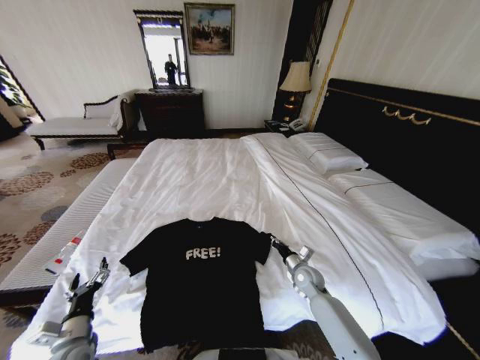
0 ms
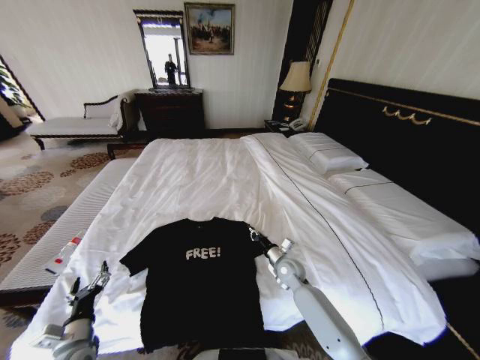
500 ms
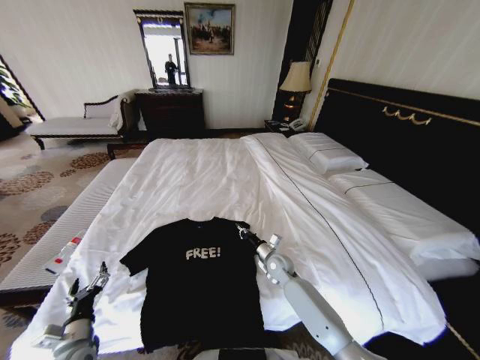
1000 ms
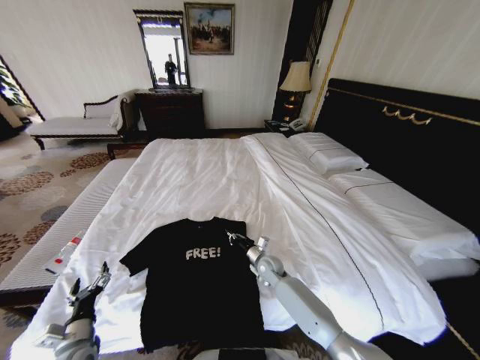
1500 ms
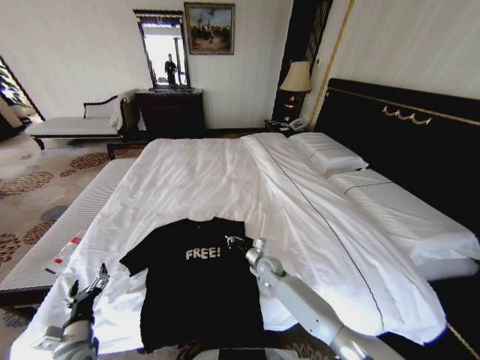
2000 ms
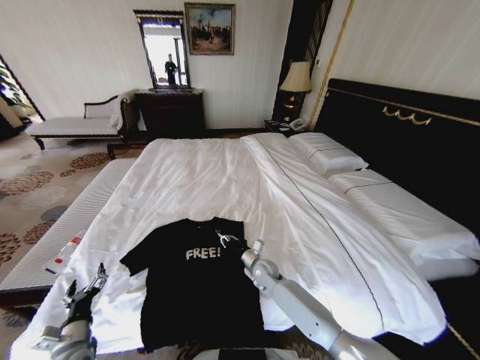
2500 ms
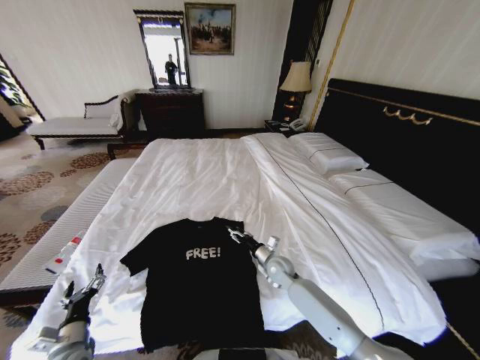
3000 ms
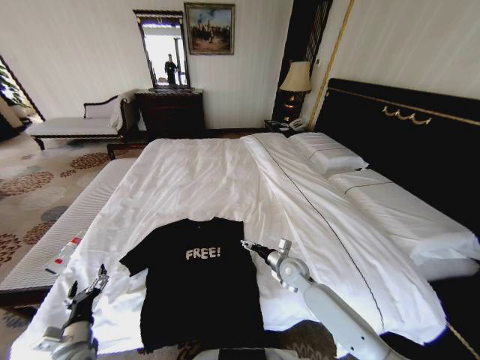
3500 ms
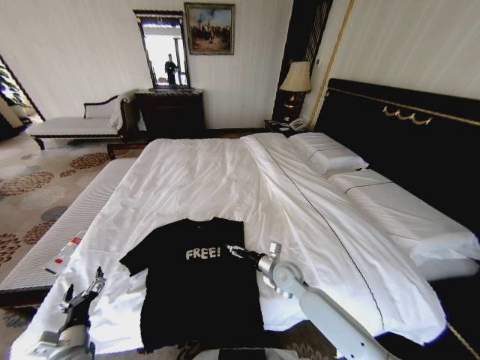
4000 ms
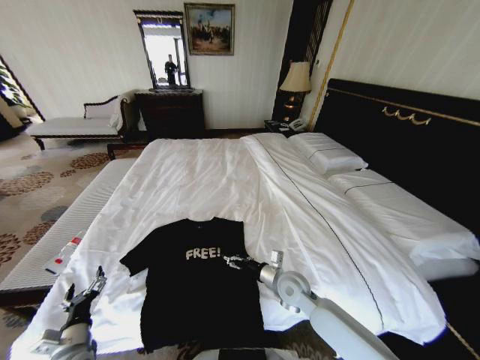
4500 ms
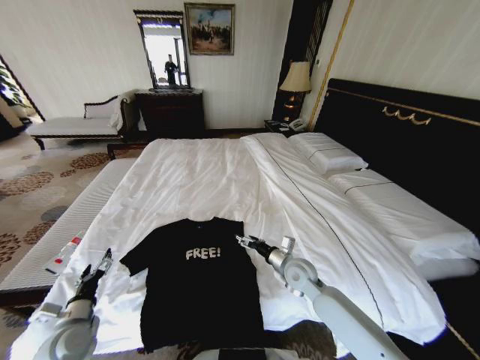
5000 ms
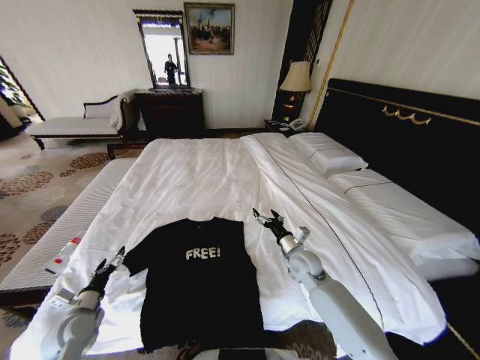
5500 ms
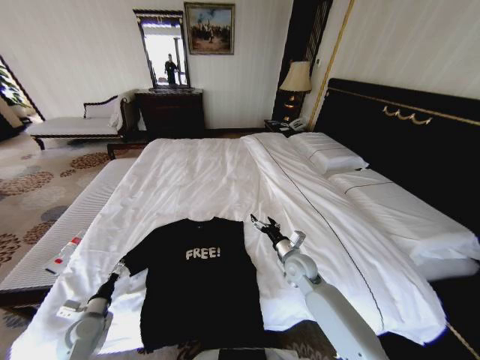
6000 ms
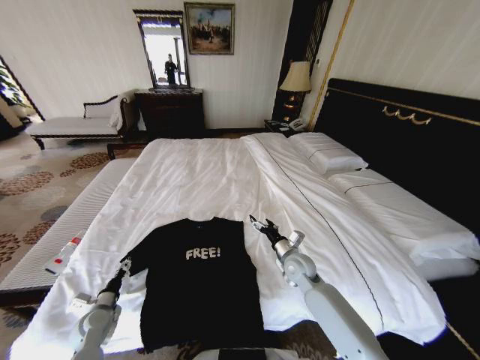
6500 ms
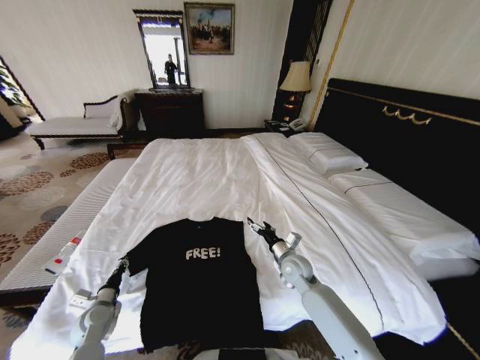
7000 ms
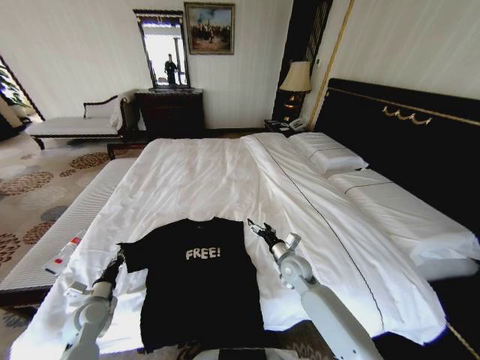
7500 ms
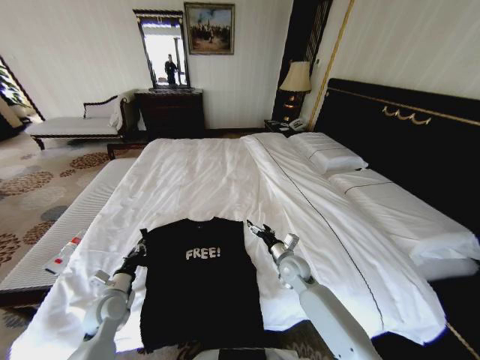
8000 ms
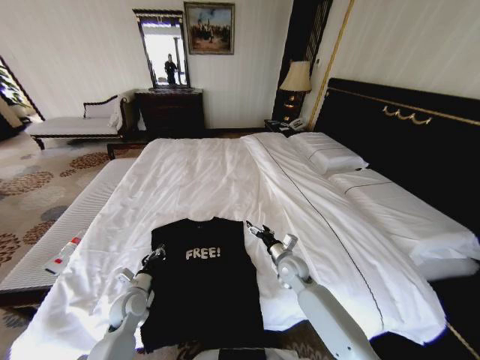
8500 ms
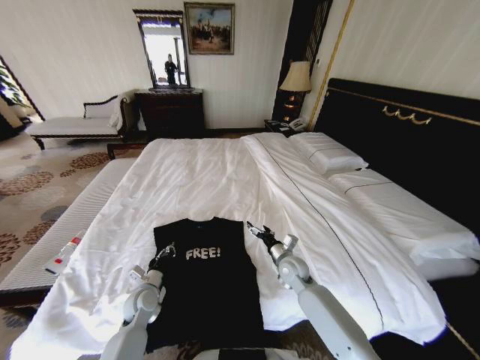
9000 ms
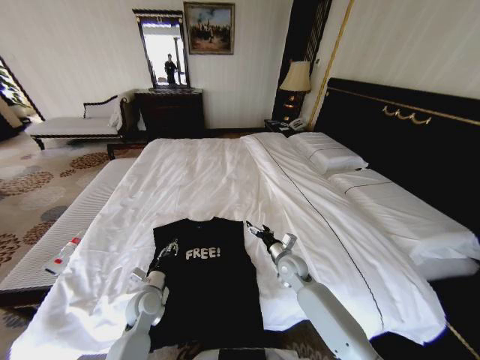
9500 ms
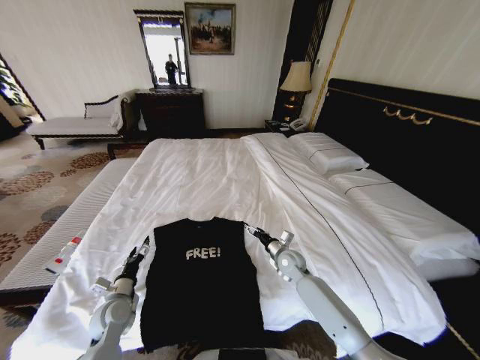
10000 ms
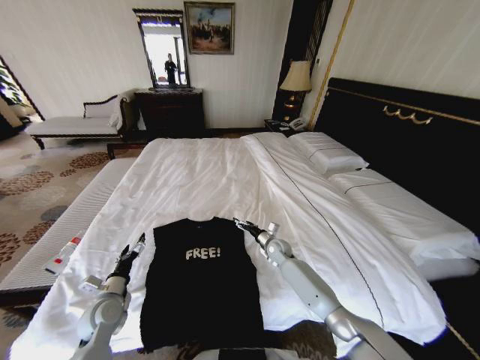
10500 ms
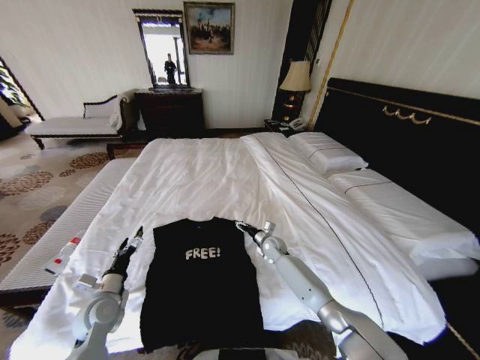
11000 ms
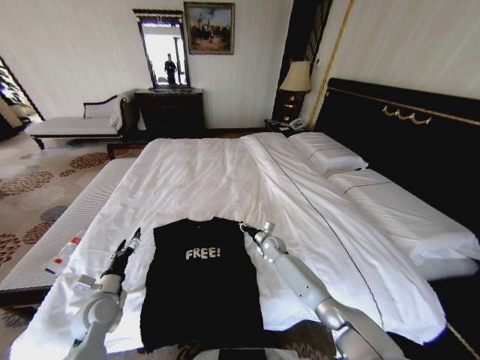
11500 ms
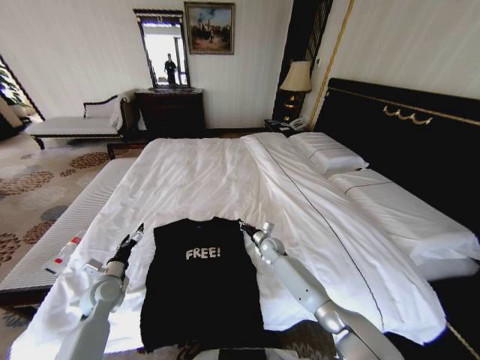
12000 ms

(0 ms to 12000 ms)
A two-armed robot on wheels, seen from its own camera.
Task of the whole recording: Fold the clothes on the bed.
0 ms - 2000 ms: The right gripper goes roughly 15 cm to the left.
2000 ms - 4000 ms: The right gripper travels upward and backward by roughly 10 cm, and opens up.
4000 ms - 6000 ms: The right gripper ends up approximately 5 cm from where it was. Meanwhile the left gripper heads forward, covering approximately 10 cm.
6000 ms - 8000 ms: The left gripper travels to the right by about 5 cm, and closes up.
8000 ms - 10000 ms: The left gripper travels to the right and back again, about 10 cm each way, and opens up.
10000 ms - 12000 ms: The left gripper shifts by about 5 cm. The right gripper heads forward, covering approximately 10 cm, and closes up.

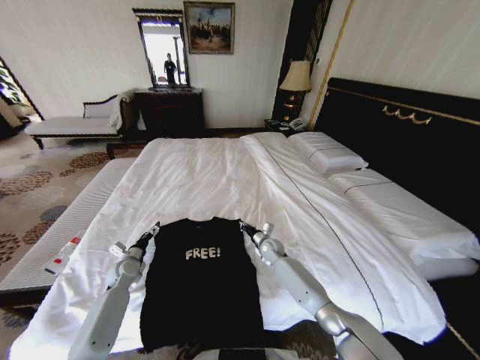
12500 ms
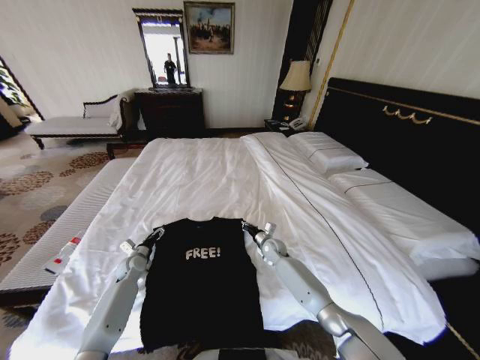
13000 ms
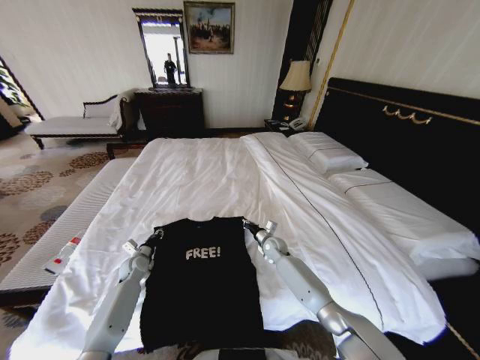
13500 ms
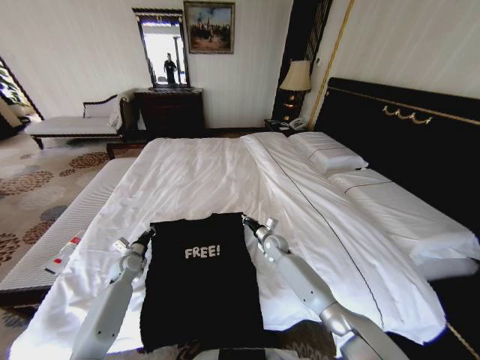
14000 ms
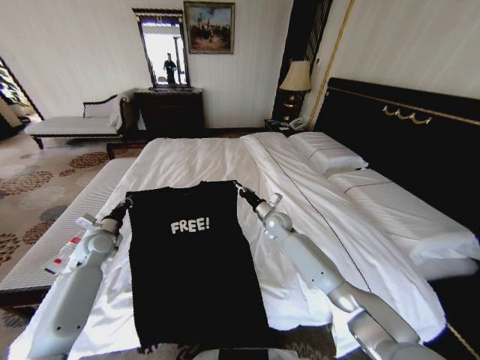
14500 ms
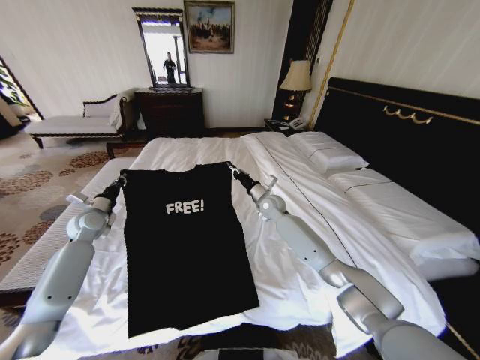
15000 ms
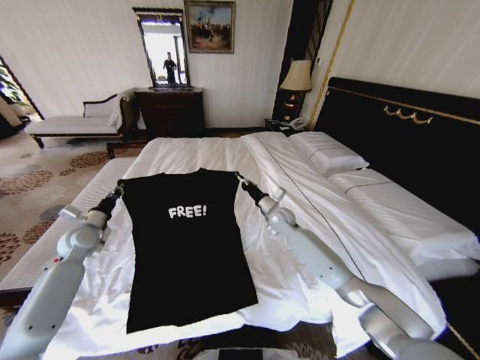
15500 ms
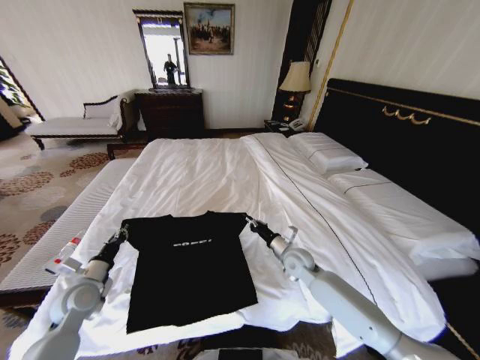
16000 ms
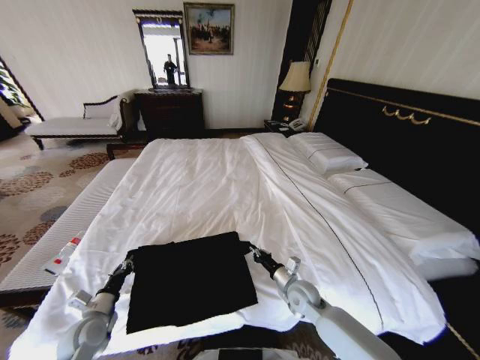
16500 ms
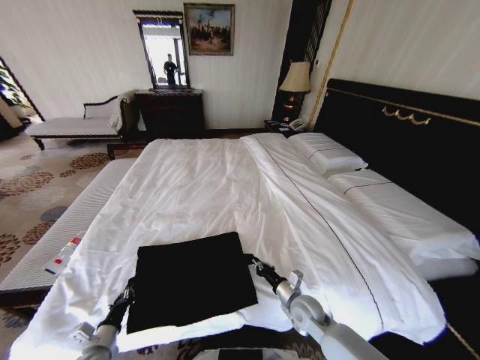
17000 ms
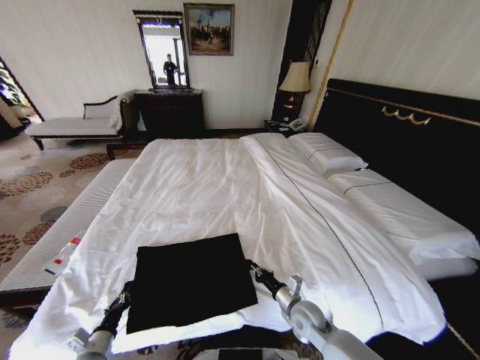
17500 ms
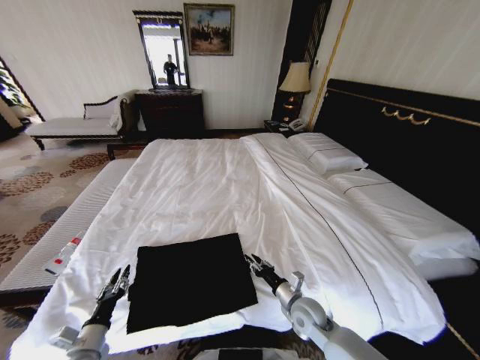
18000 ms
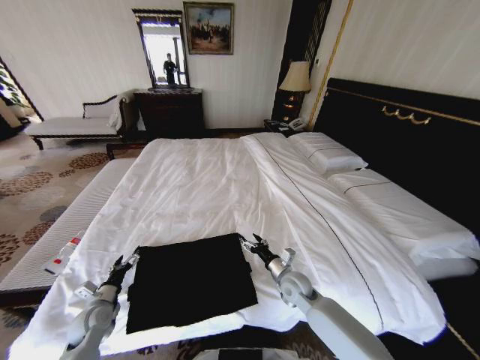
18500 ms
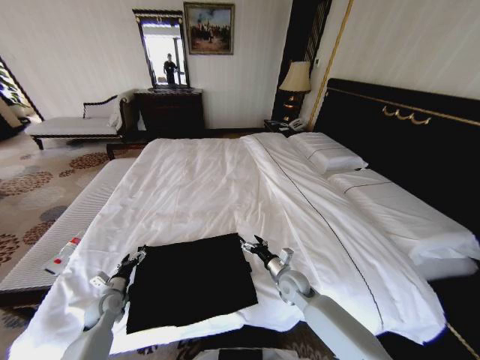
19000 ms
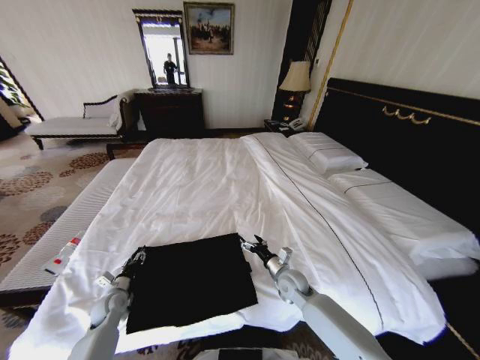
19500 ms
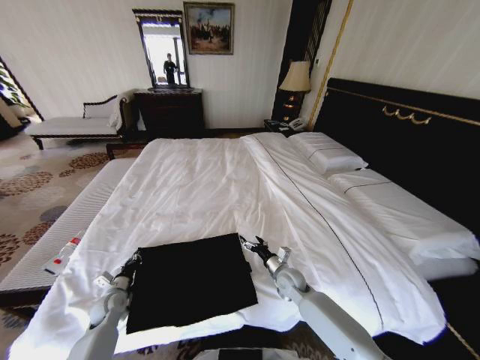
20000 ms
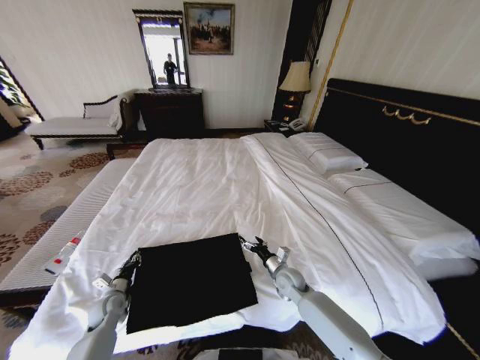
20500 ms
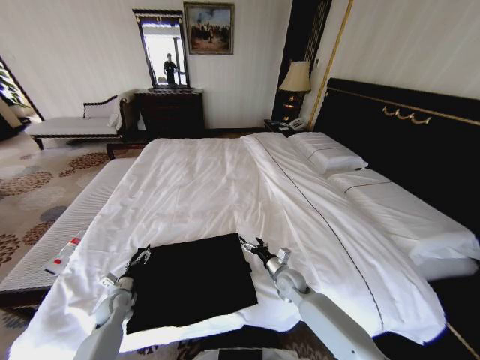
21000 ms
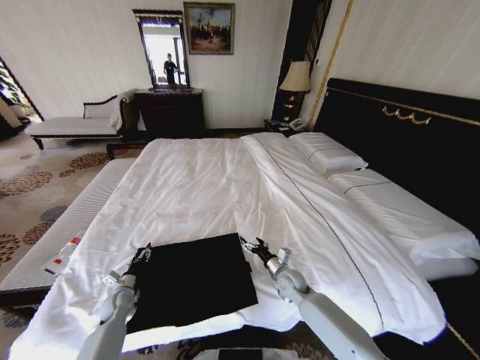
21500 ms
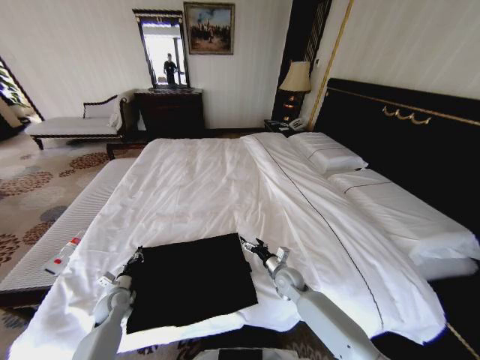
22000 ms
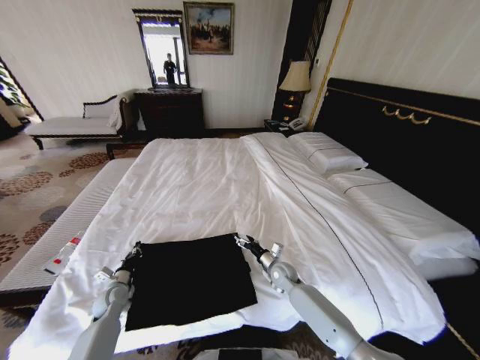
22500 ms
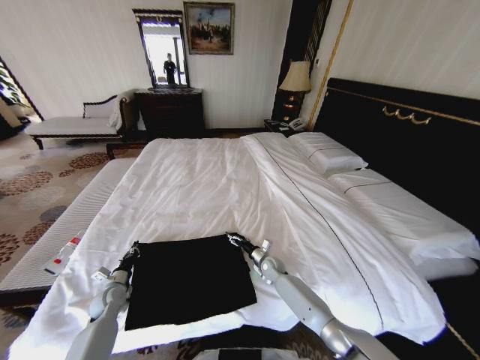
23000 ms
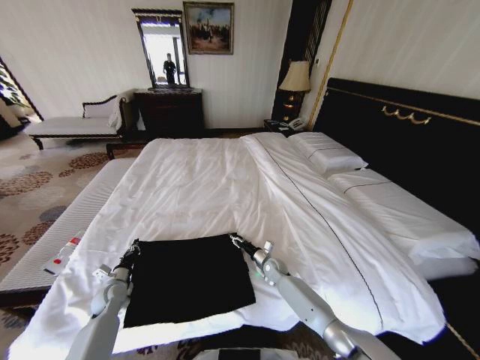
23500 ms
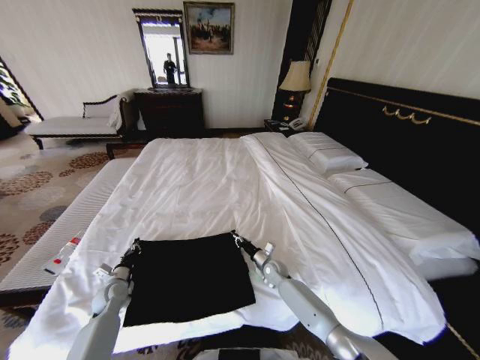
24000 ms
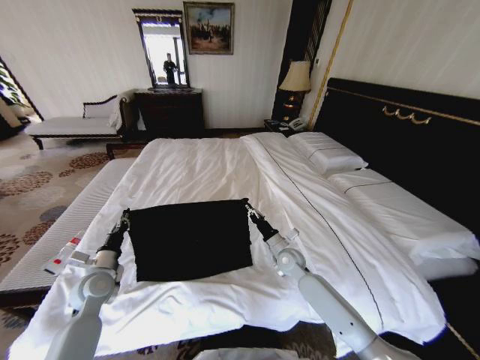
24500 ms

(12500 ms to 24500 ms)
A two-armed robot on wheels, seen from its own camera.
Task of the whole recording: Fold the clothes on the bed.
12500 ms - 14500 ms: The right gripper shifts approximately 15 cm upward; the left gripper heads upward and to the left, covering approximately 15 cm, and closes its fingers.
14500 ms - 16500 ms: The grippers both shift backward and downward by approximately 25 cm.
16500 ms - 18500 ms: The right gripper travels backward and back again, about 5 cm each way, and opens up, while the left gripper goes backward and returns, about 10 cm each way, and opens up.
18500 ms - 20500 ms: The left gripper moves roughly 5 cm, and closes.
20500 ms - 22500 ms: The left gripper opens, then closes again.
22500 ms - 24500 ms: The right gripper is displaced upward by about 5 cm, and closes its fingers; the left gripper travels upward by approximately 15 cm.

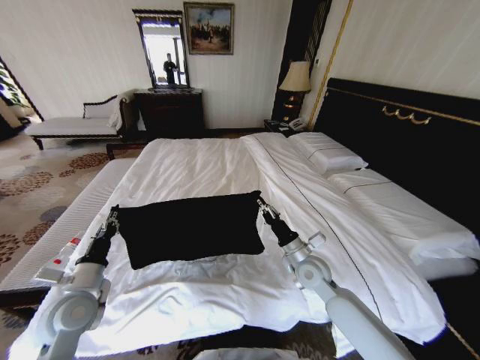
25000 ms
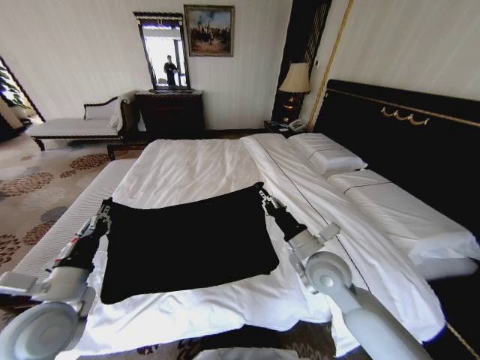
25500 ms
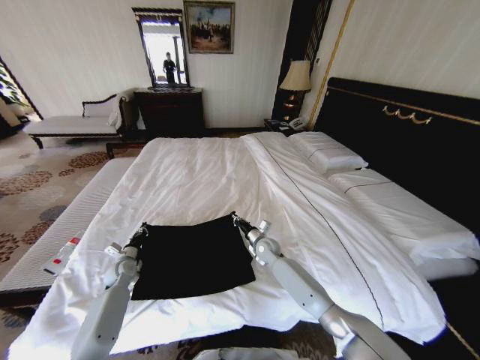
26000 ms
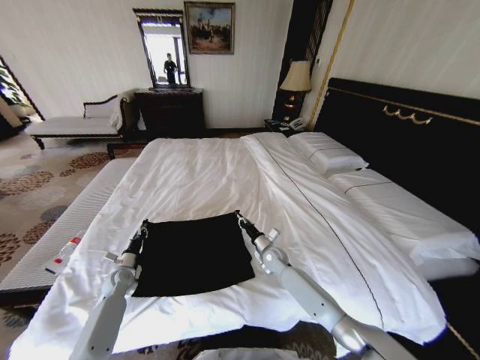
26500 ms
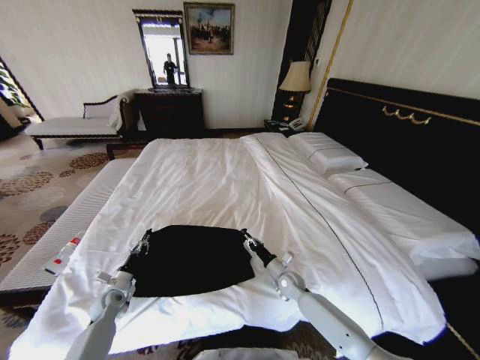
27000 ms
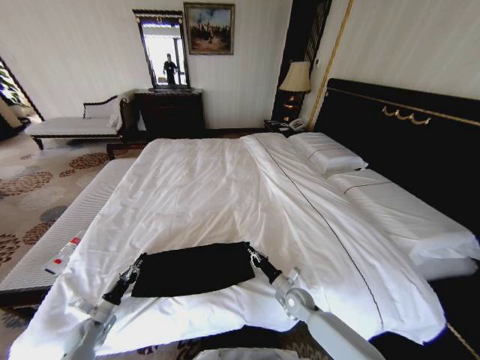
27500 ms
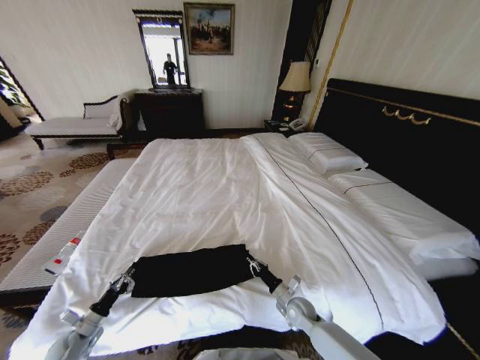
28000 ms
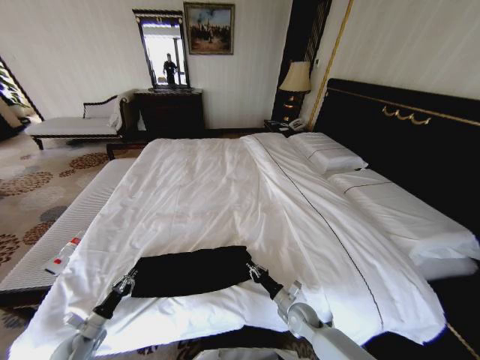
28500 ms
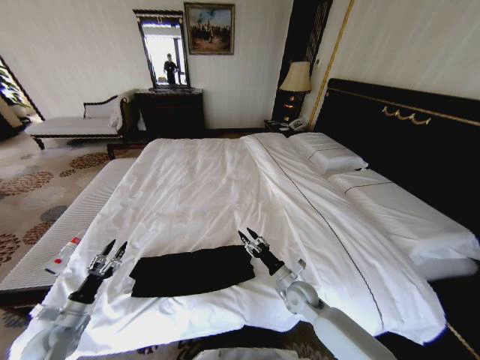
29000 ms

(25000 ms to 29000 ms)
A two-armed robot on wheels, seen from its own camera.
Task of the whole recording: Fold the clothes on the bed.
25000 ms - 27000 ms: The grippers both shift downward by some 20 cm.
27000 ms - 29000 ms: The left gripper shifts roughly 15 cm backward, to the left and upward, and opens up; the right gripper heads upward and backward, covering approximately 10 cm, and opens.
